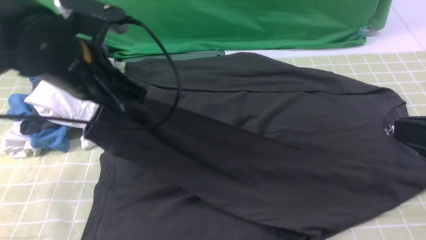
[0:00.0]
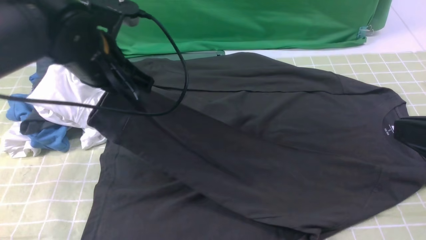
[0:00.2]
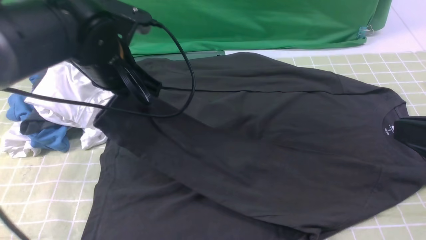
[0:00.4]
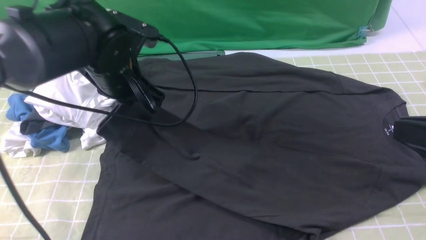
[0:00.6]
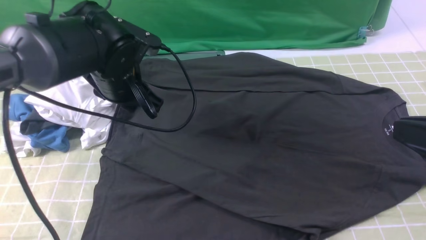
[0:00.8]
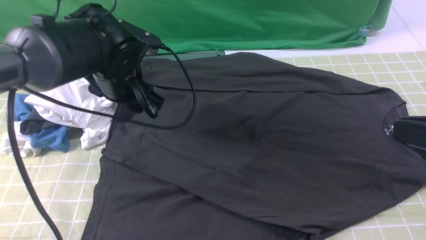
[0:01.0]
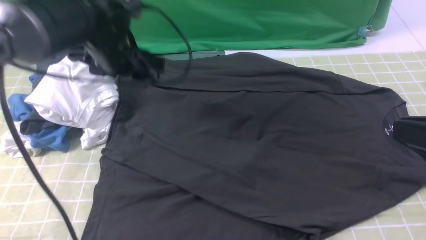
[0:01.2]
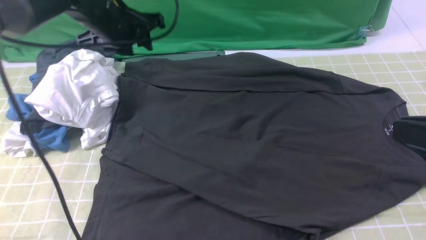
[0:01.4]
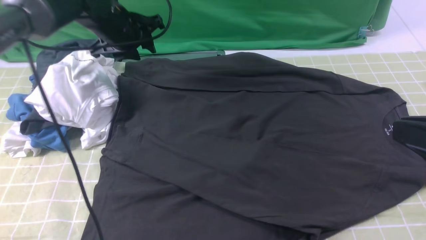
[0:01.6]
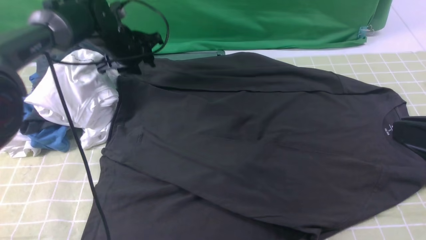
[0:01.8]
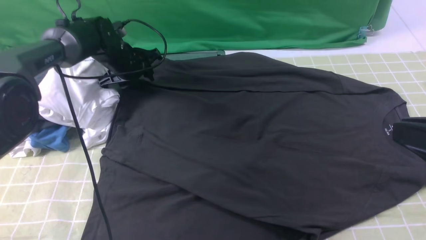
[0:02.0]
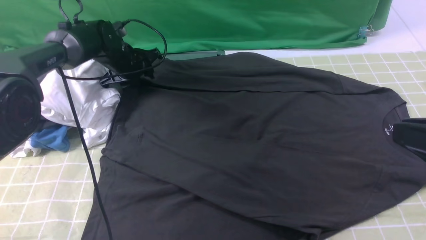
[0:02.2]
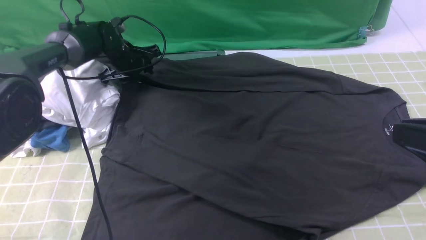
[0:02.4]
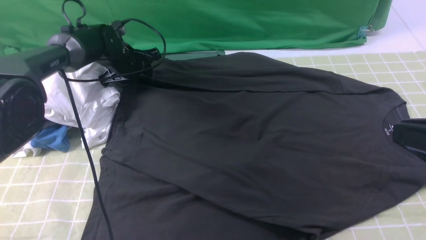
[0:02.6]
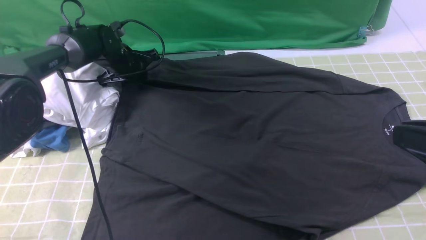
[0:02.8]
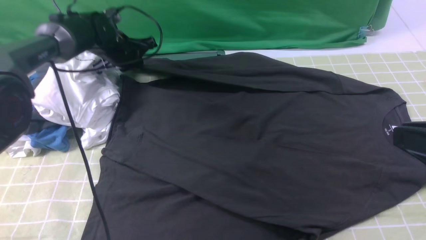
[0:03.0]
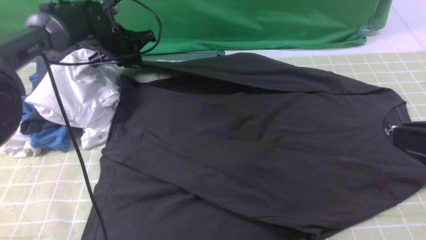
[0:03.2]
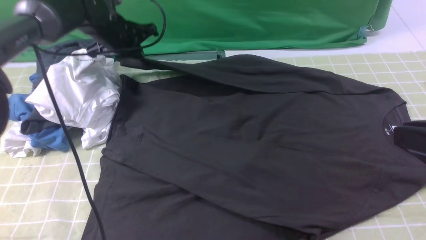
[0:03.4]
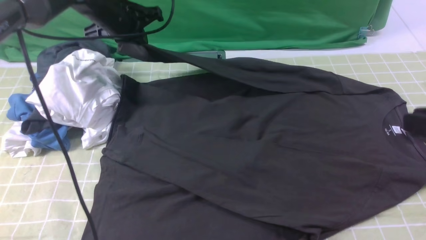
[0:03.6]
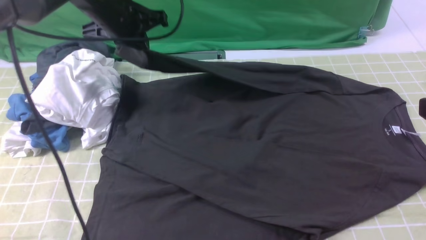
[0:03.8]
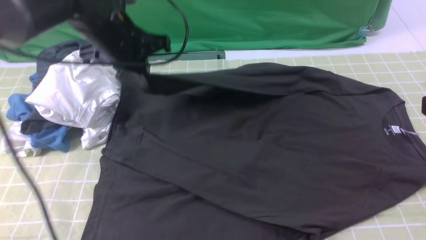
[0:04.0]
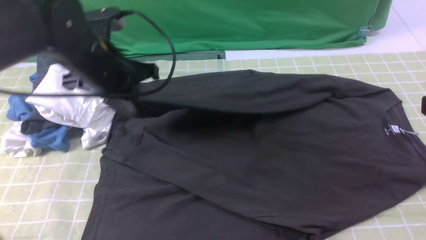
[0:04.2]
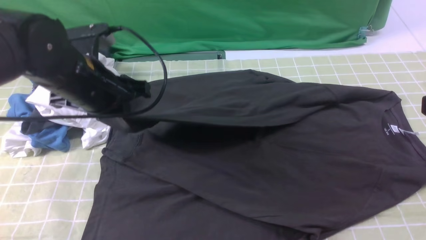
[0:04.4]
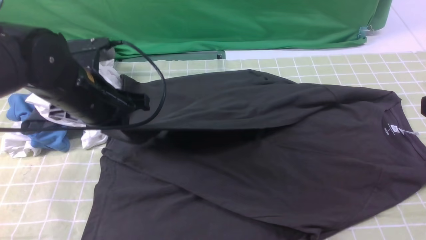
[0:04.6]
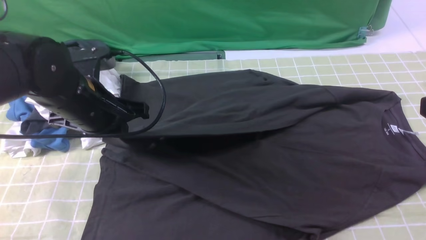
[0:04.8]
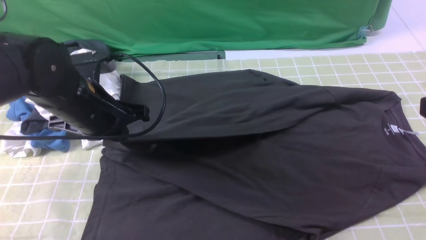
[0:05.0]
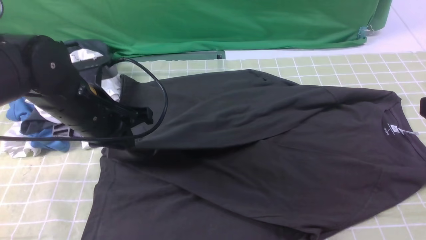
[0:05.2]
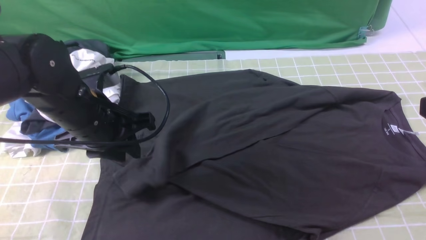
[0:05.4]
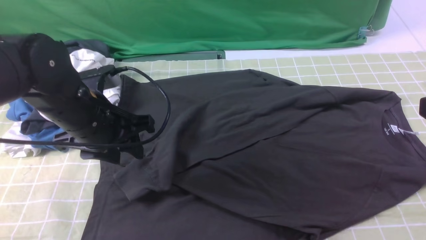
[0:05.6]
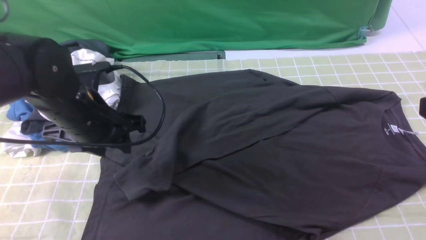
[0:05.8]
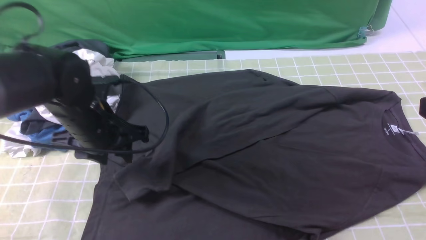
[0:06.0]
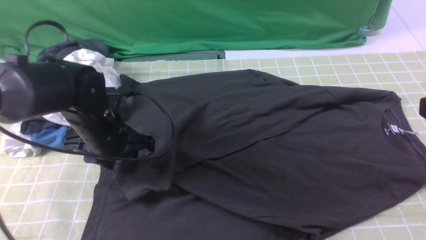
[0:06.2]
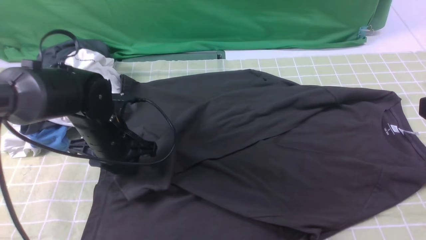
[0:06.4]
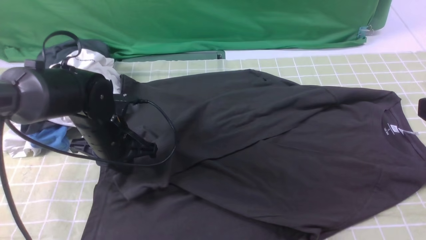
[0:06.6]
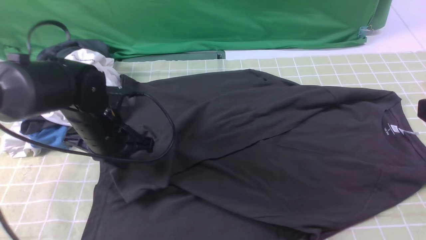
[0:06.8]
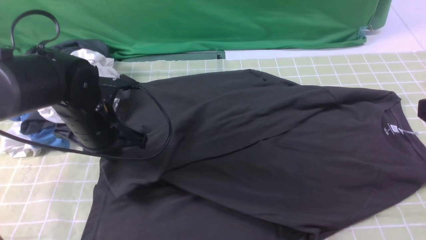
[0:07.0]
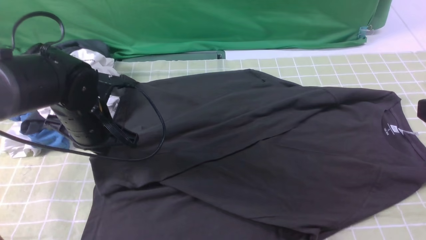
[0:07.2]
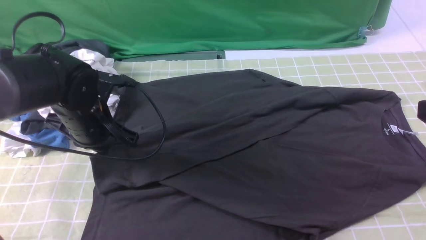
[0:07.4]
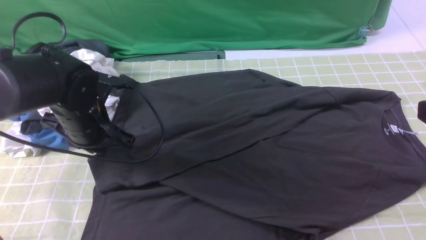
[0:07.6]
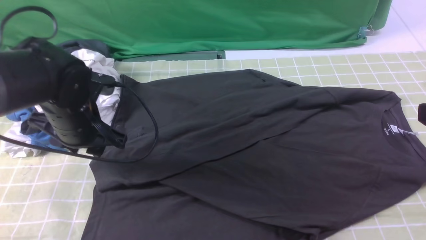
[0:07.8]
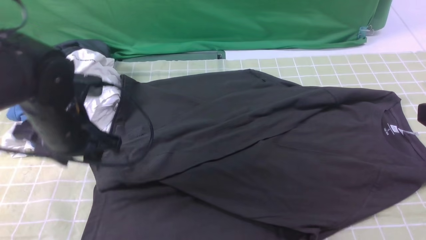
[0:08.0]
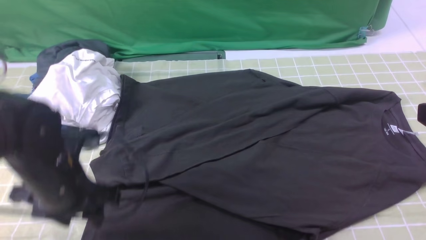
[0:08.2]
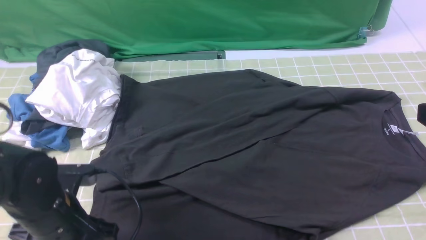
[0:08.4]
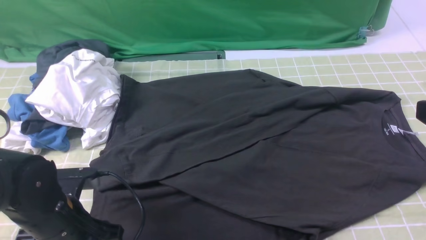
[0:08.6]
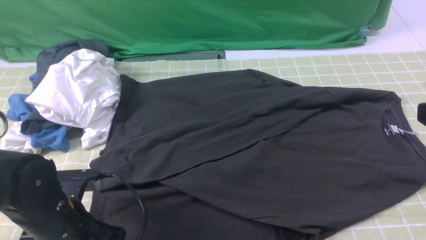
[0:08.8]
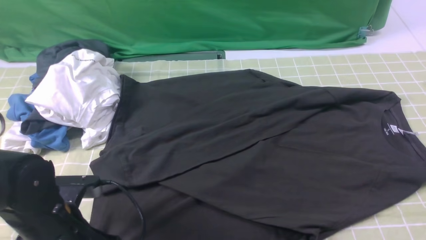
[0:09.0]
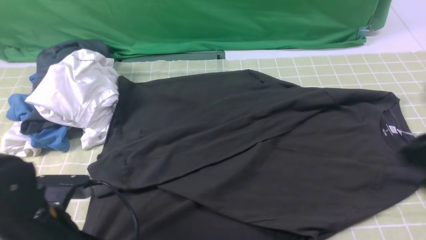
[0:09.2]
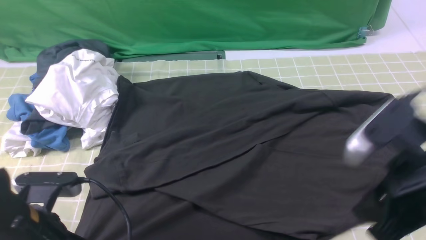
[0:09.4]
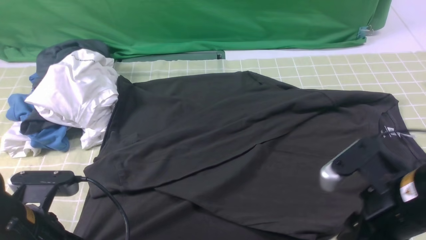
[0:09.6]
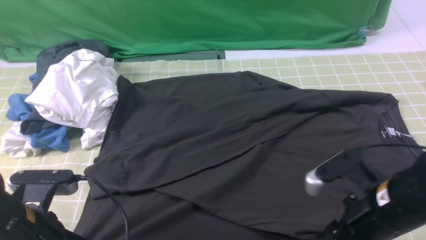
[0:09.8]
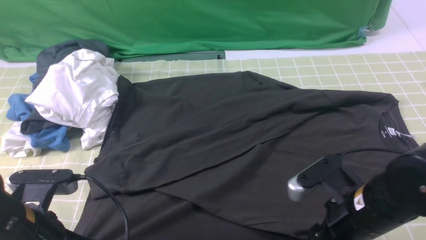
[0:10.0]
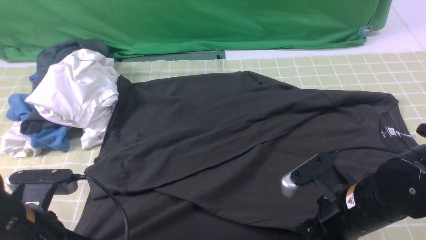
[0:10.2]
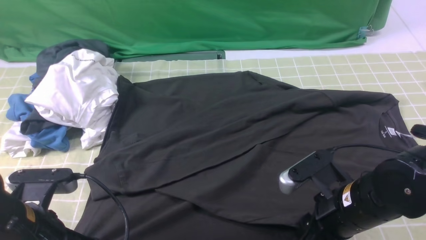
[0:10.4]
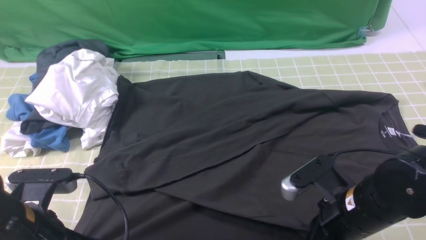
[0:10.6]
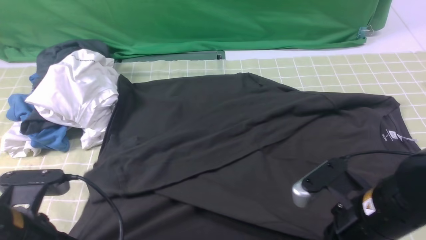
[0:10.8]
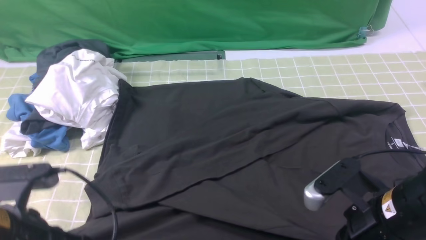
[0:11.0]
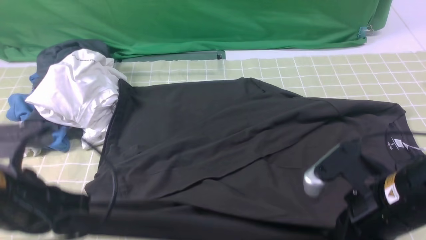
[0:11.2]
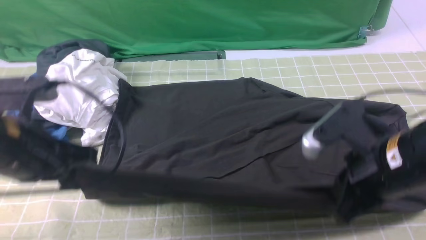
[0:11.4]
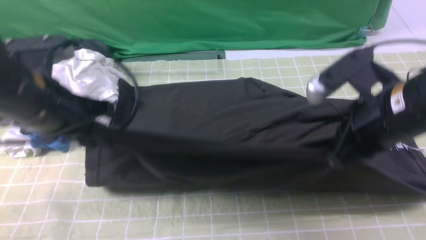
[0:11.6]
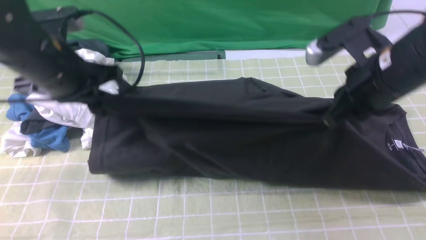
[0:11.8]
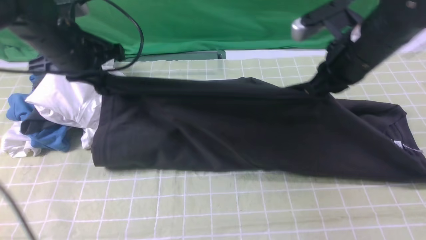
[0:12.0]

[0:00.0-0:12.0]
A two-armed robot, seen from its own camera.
Step, 0:01.0 to 0:02.2: use the left arm to clamp the cuff farthest from it.
Step, 0:02.4 to 0:07.6: use the left arm to drag and drop the cuff onto the cuff closest to the left arm.
Step, 0:08.0 to 0:10.6: use both arms simultaneously to clamp the lower edge of the clothing fabric.
0:00.0 to 0:01.6: The left gripper shifts approximately 20 cm forward, and opens.
0:01.6 to 0:03.0: The left gripper moves downward, some 5 cm, and closes.
0:03.0 to 0:04.4: The left gripper moves backward and upward, some 20 cm.
0:04.4 to 0:06.0: The left gripper heads downward, covering some 5 cm, and opens up.
0:06.0 to 0:07.6: The left gripper closes up.
0:07.6 to 0:09.0: The left gripper is displaced backward by some 15 cm, and opens and closes again.
0:09.0 to 0:10.4: The right gripper goes about 20 cm downward and to the left.
0:10.4 to 0:12.0: The right gripper shifts approximately 20 cm forward and upward, and closes, while the left gripper travels forward by roughly 25 cm.

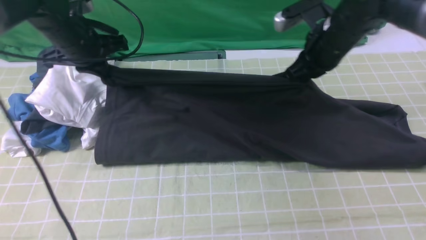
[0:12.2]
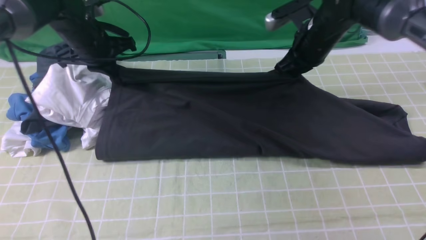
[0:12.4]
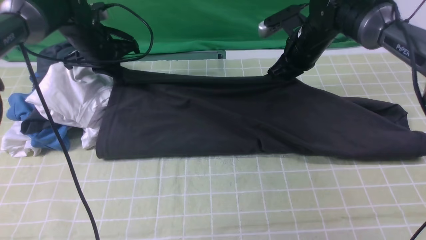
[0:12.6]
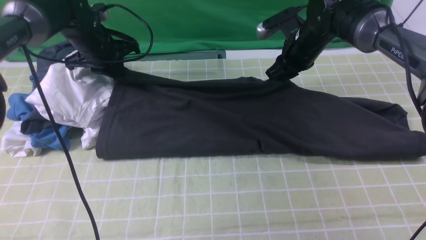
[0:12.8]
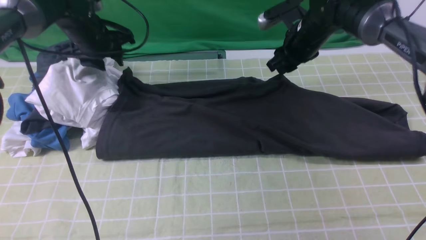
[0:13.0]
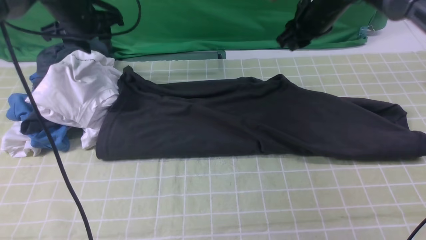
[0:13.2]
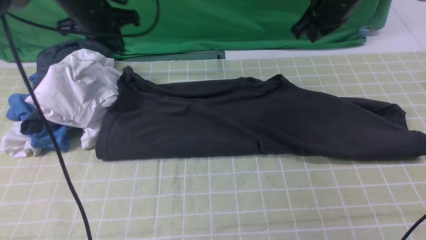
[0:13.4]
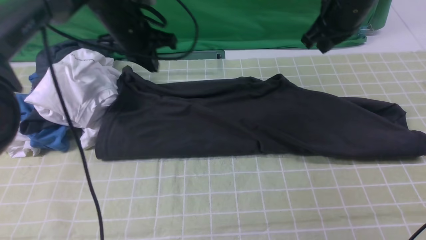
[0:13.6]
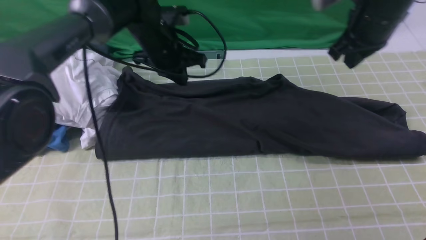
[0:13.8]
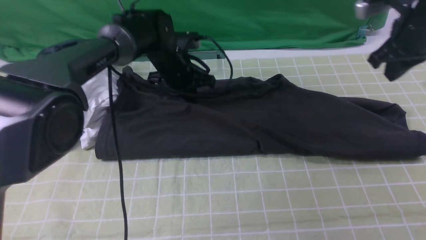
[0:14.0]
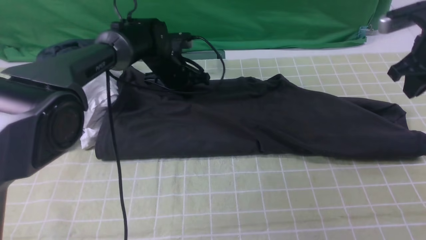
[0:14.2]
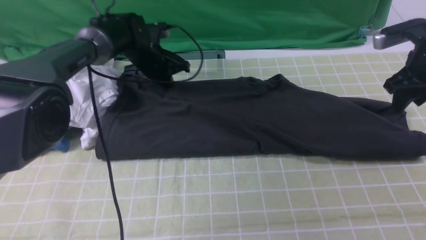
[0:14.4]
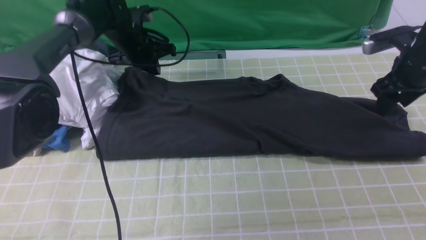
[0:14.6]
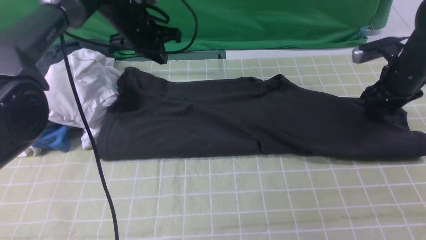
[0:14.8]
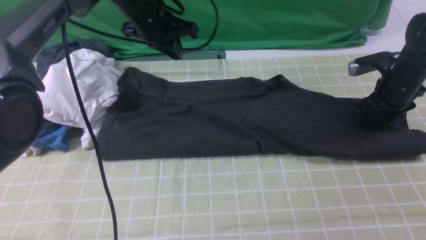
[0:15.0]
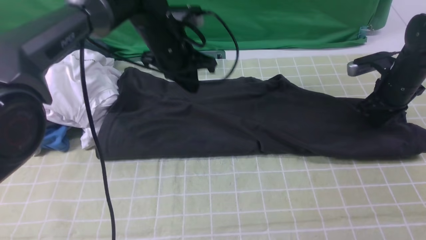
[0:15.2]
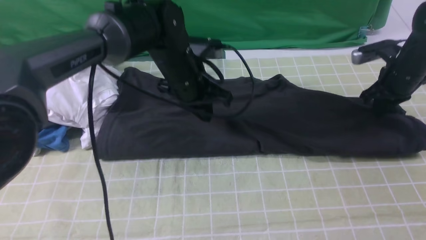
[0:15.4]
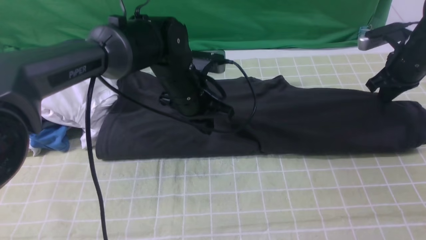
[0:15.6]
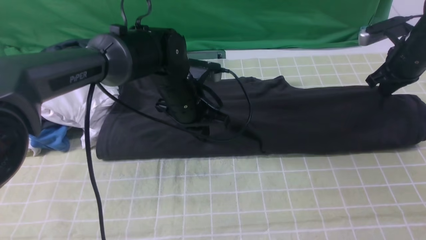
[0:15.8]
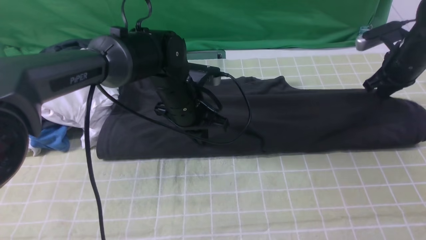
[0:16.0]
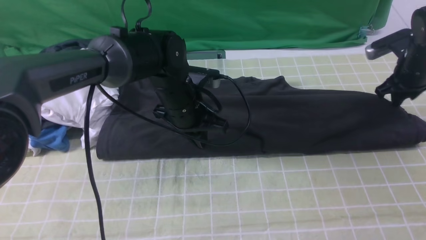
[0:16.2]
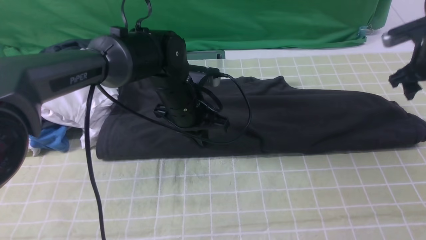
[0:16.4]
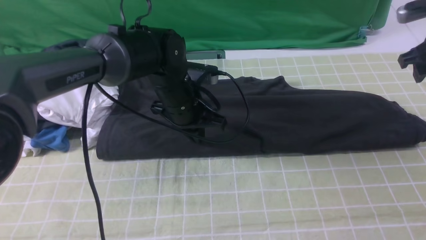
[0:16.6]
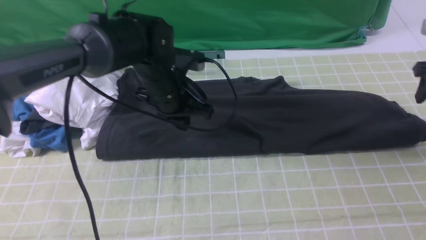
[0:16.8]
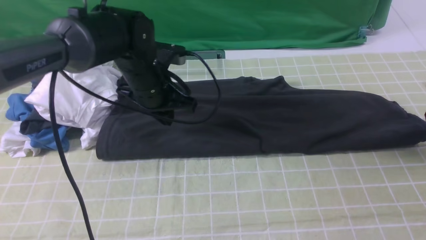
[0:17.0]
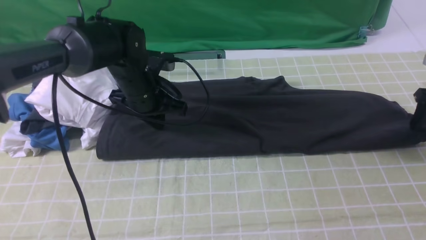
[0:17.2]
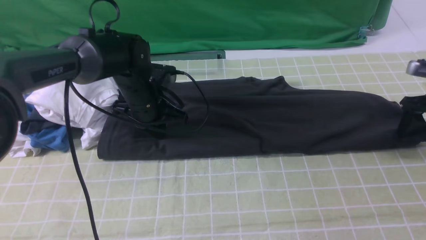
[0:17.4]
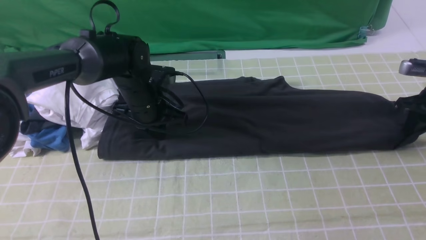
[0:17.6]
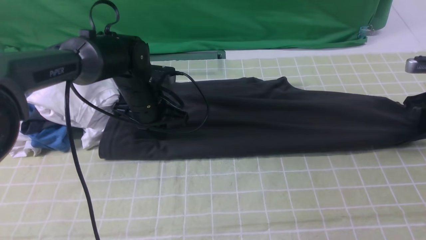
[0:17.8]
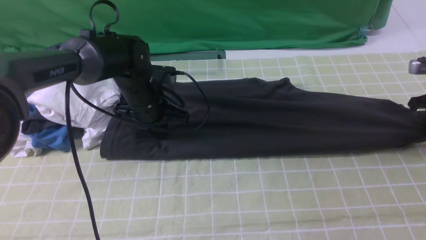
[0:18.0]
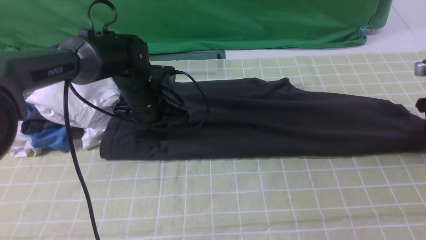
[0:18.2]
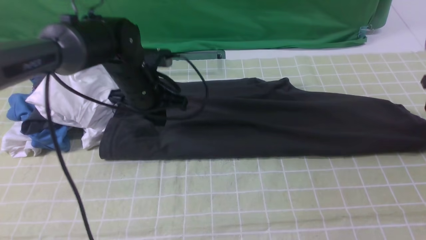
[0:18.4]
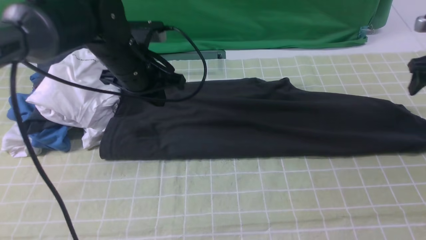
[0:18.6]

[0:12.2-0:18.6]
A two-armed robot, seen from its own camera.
0:12.2 to 0:13.8: The left gripper heads to the right, covering roughly 10 cm, and opens and closes again; the right gripper is displaced to the right by some 5 cm, and opens, then closes again.
0:13.8 to 0:15.4: The left gripper is displaced backward and to the right by approximately 10 cm. The right gripper is displaced downward and to the right by approximately 15 cm, and opens, then closes once more.
0:15.4 to 0:17.0: The right gripper goes some 10 cm to the right, and opens up. The left gripper moves to the left, approximately 5 cm.
0:17.0 to 0:18.6: The right gripper closes and opens again.
